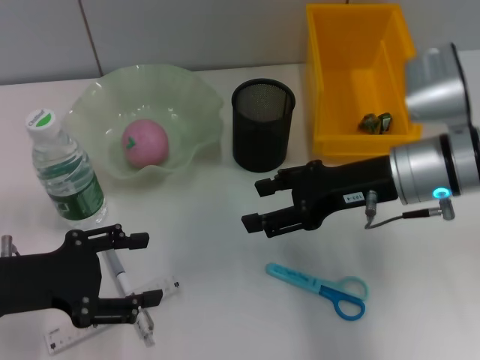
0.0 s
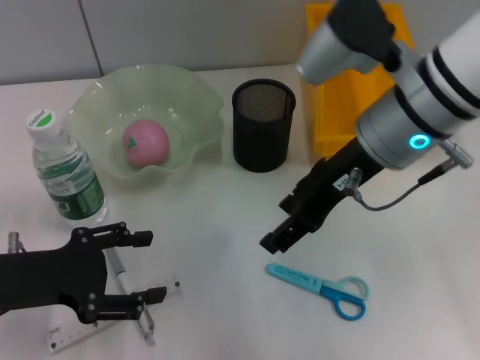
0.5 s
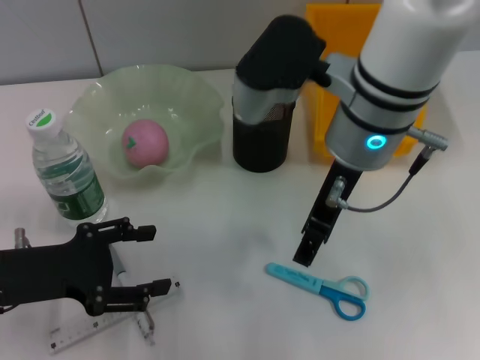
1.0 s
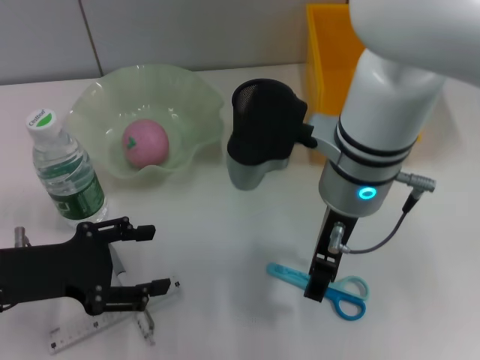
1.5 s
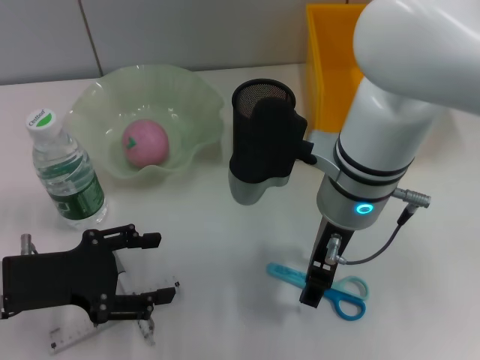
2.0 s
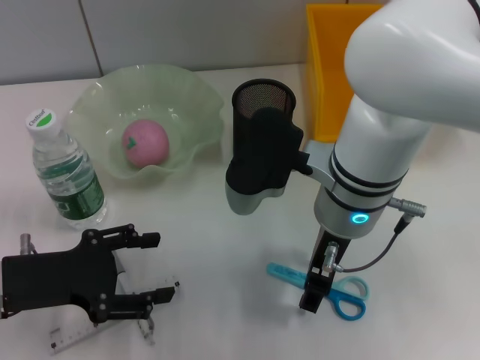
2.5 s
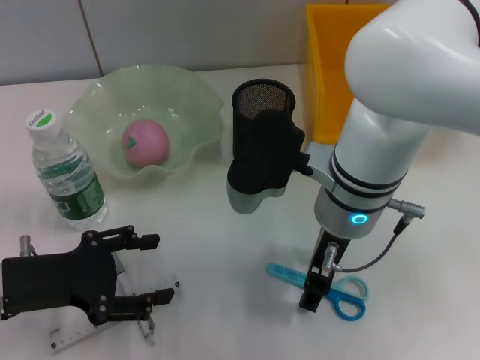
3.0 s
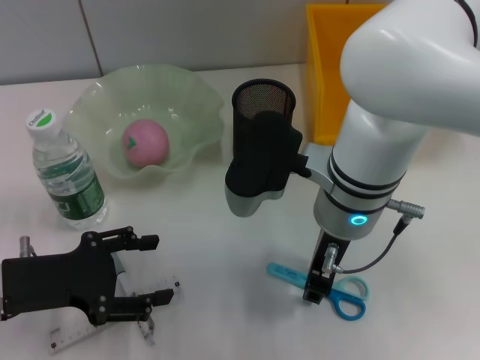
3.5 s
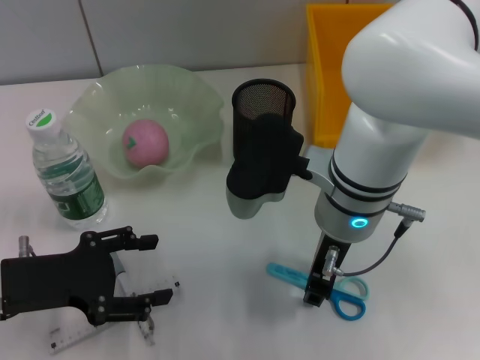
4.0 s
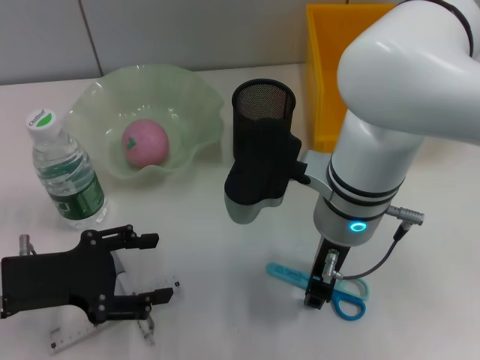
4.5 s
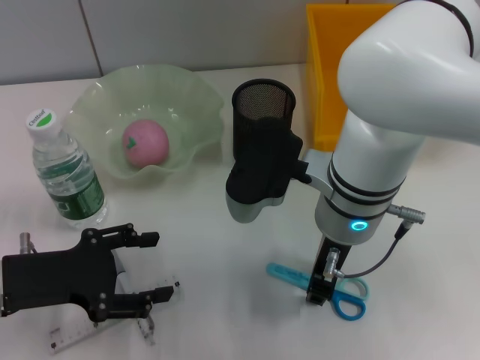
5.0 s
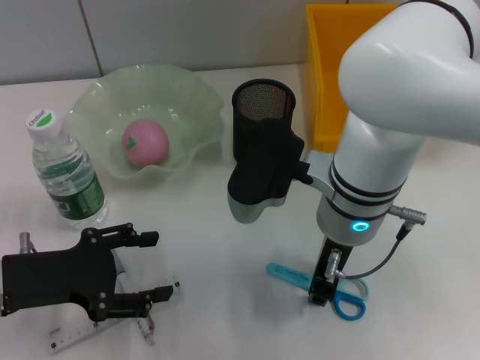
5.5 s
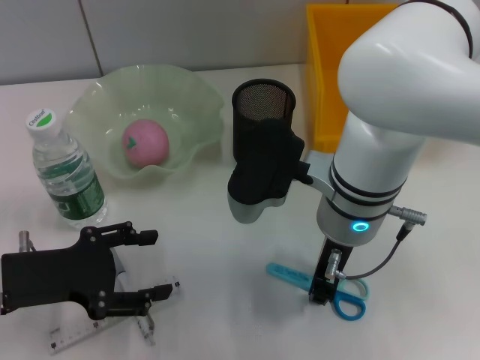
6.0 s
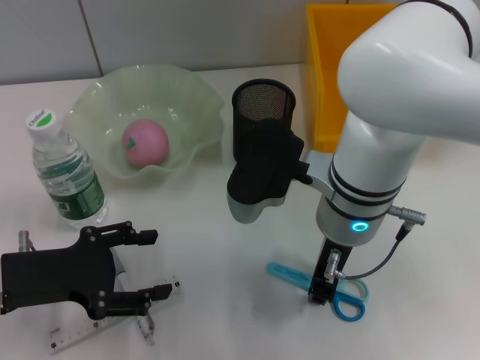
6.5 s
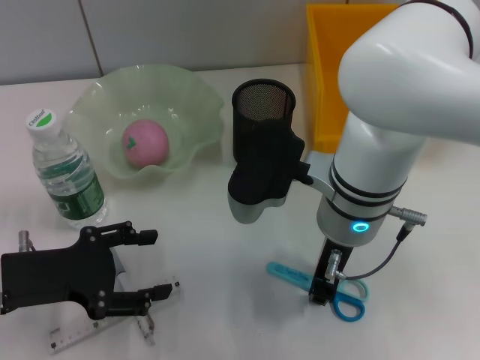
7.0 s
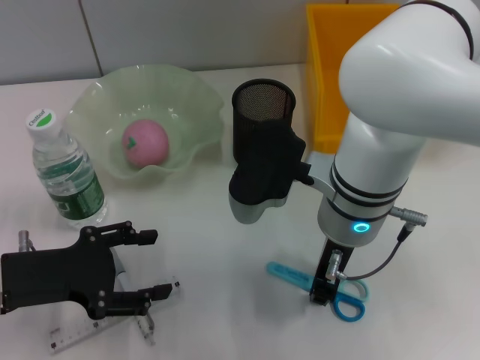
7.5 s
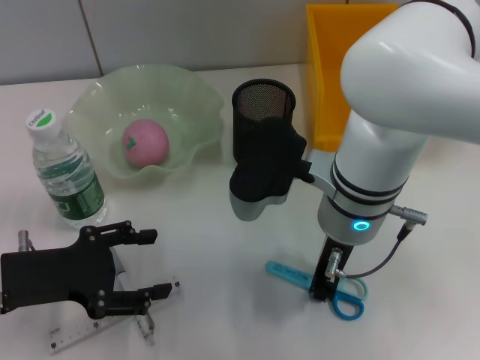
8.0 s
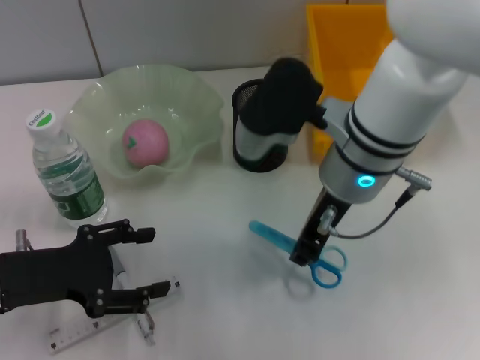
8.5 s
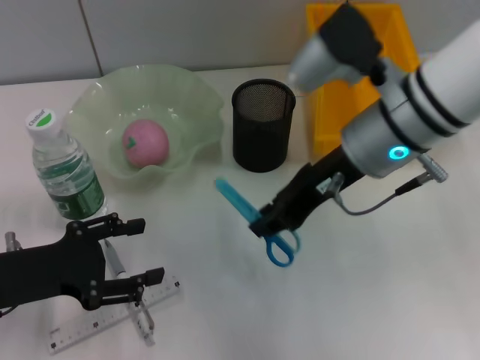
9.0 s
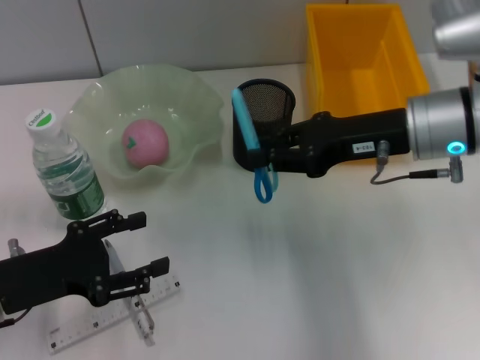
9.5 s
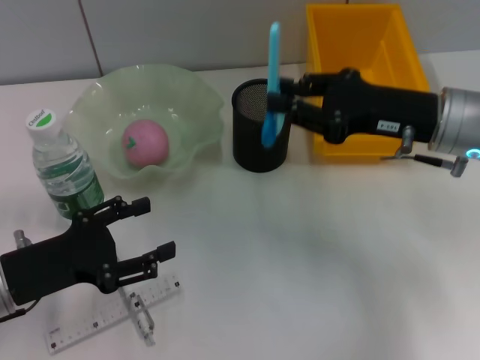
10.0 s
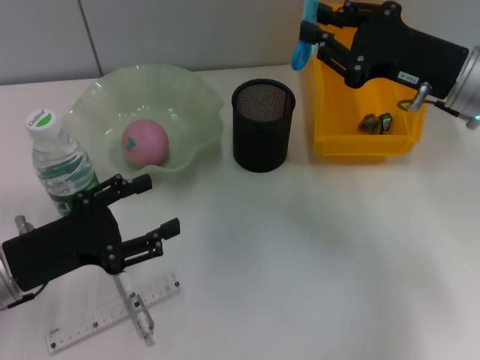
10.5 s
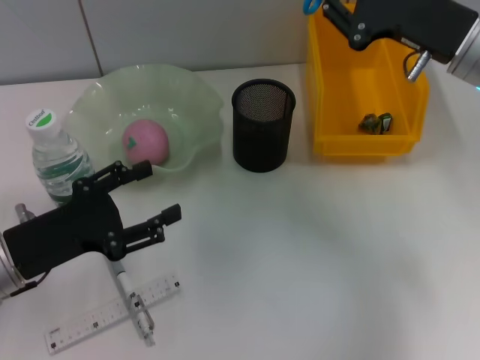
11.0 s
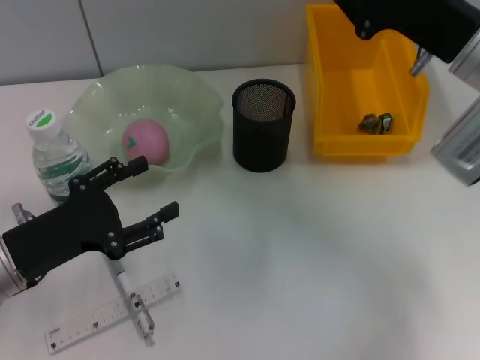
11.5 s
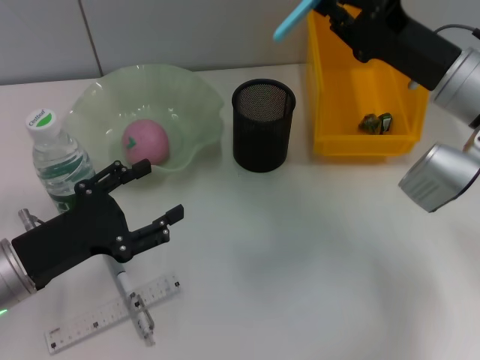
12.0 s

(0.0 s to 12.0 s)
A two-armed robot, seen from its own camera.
Step, 0.0 s - 8.0 s: Grab the blue scissors with the right hand.
0.0 s - 2.0 s: The right gripper shifts some 10 cm to the left.
2.0 s - 4.0 s: The right gripper closes.
4.0 s - 8.0 s: Both grippers stay put.
8.0 s - 10.0 s: The right gripper goes roughly 15 cm to the right.

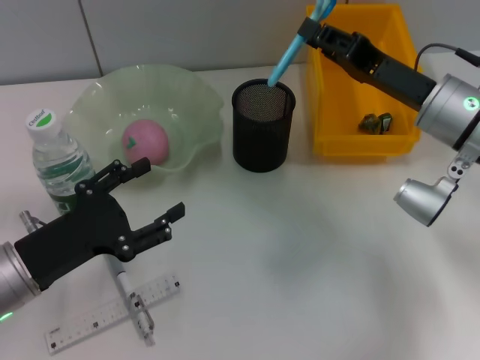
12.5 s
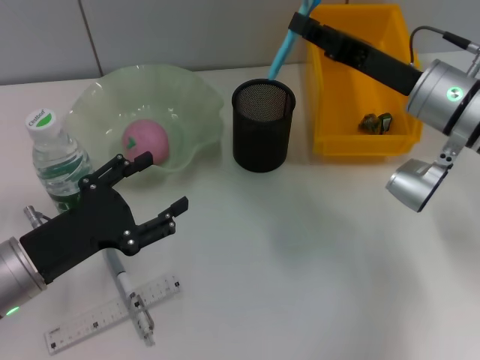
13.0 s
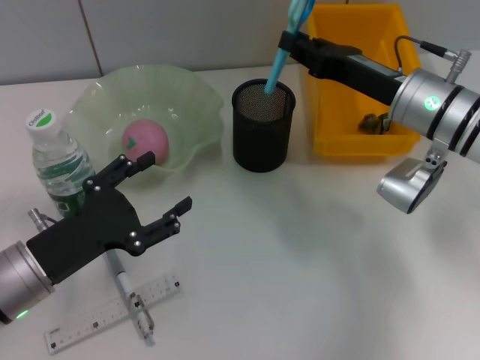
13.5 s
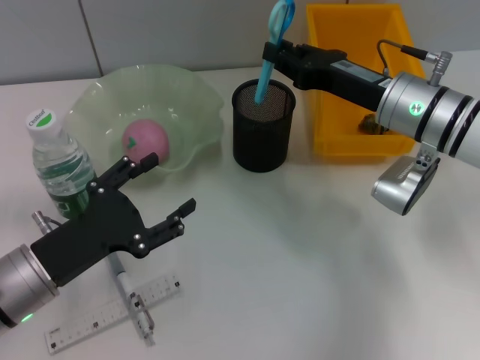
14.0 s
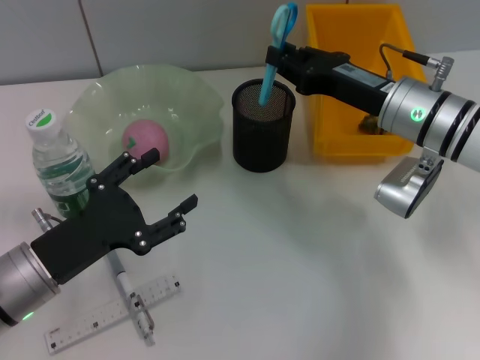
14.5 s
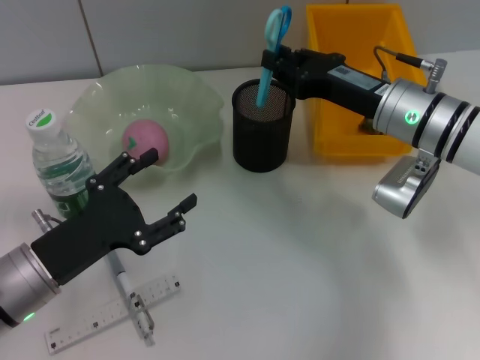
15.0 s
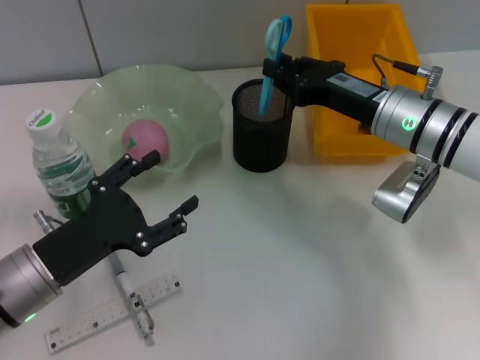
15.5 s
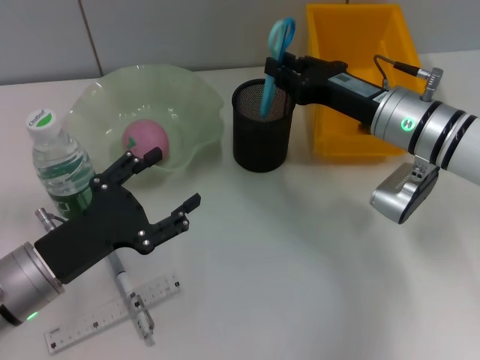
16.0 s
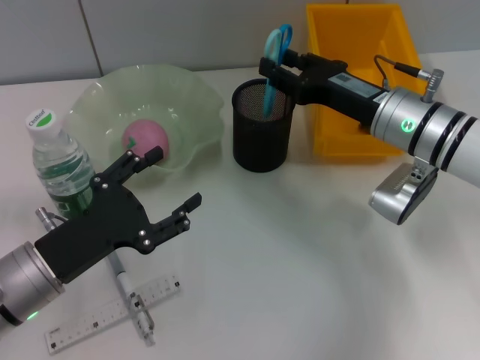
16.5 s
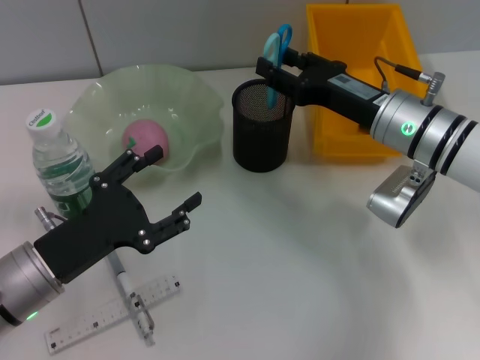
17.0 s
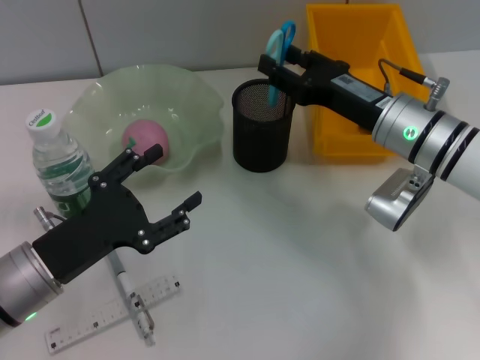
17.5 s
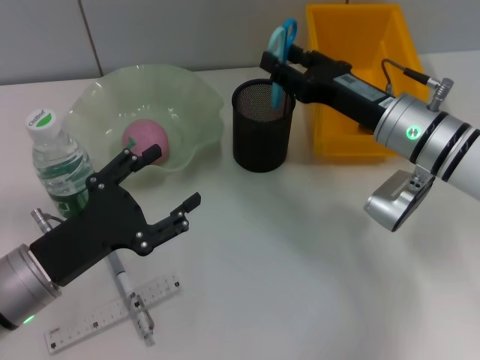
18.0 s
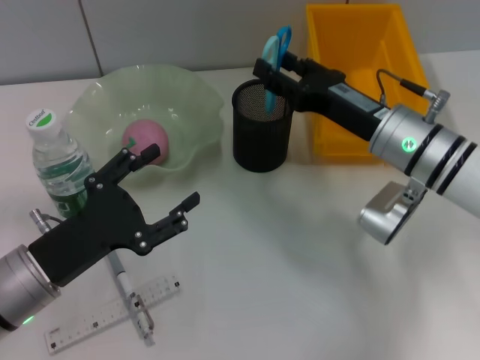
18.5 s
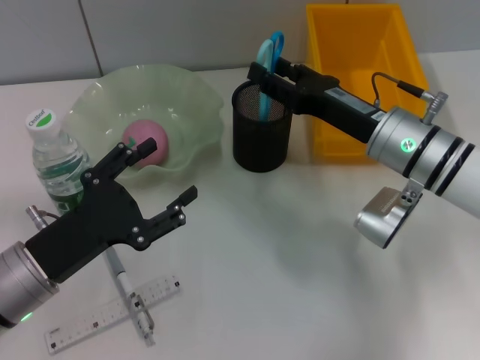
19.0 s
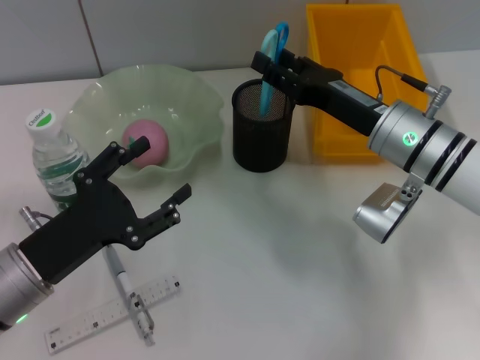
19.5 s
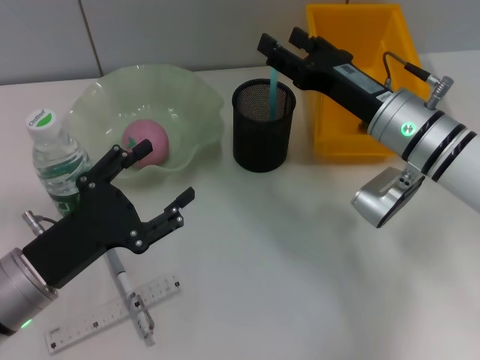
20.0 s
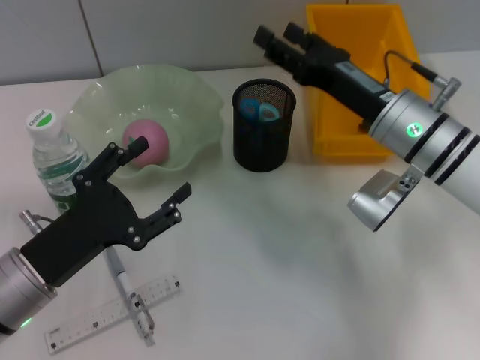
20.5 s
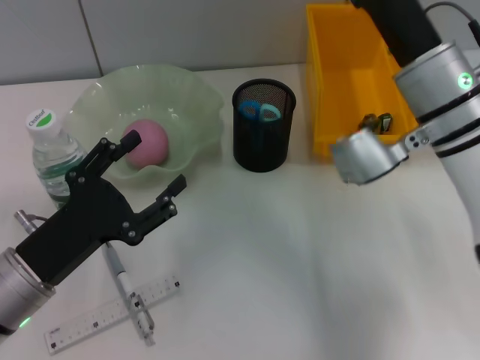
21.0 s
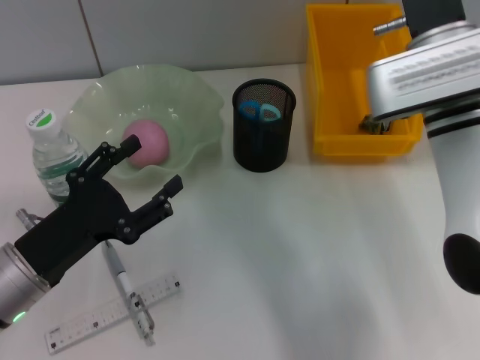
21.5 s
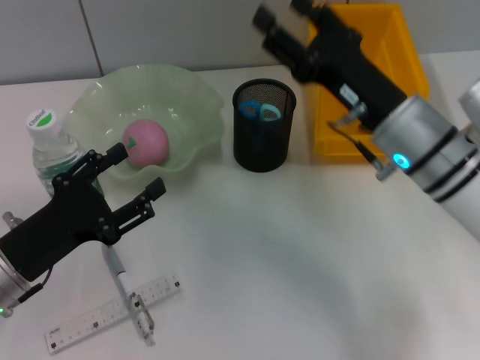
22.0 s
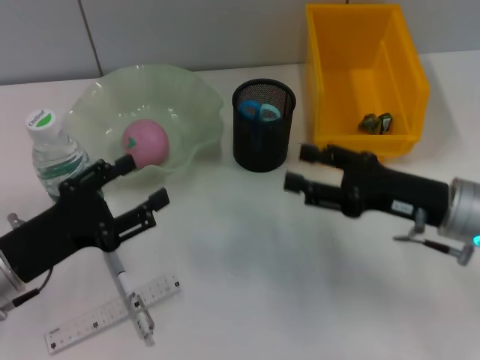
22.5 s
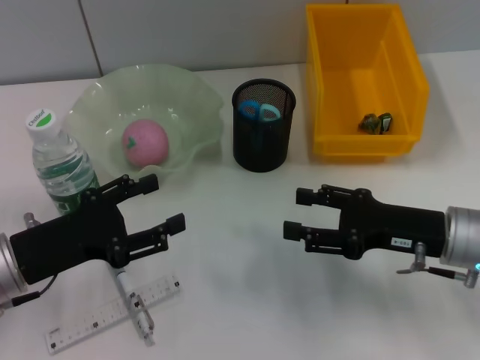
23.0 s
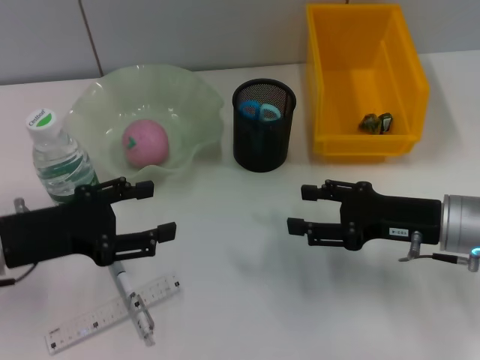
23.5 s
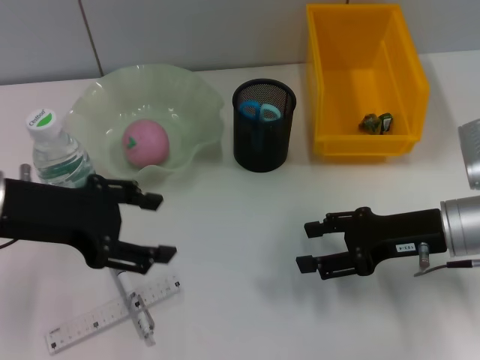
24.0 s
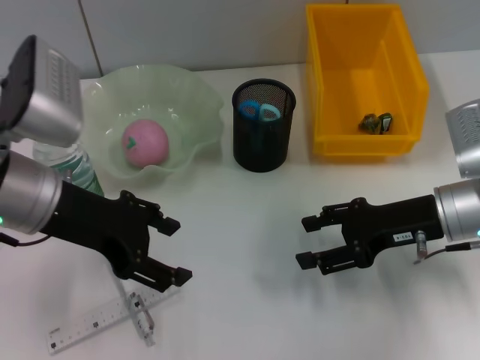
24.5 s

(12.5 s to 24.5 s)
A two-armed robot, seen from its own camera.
Step, 12.5 s - 19.5 s: Place the blue scissors into the pen holder with the right hand.
14.5 s - 16.5 s: The two grippers keep their place.
16.5 s - 20.5 s: The grippers stay close to where they were, moving slightly.
20.5 s - 22.5 s: The right gripper travels backward and to the right by roughly 10 cm.
22.5 s - 24.5 s: The left gripper is displaced upward, to the right and forward by roughly 15 cm.

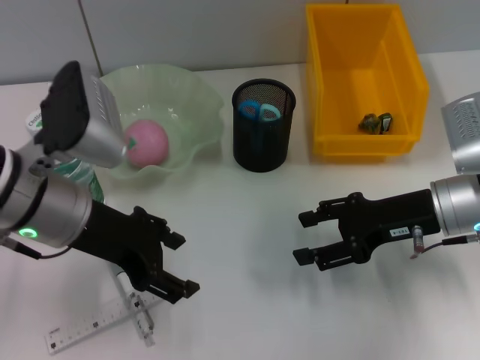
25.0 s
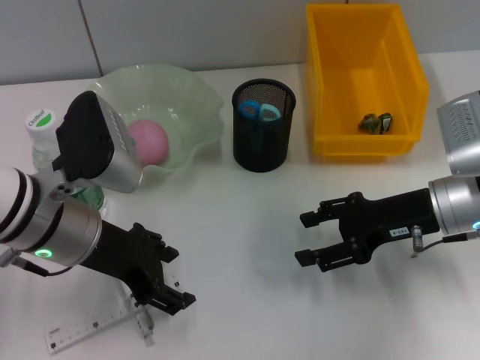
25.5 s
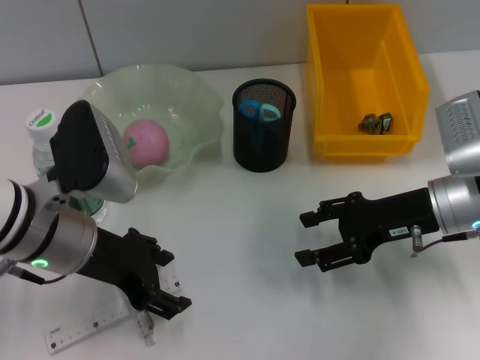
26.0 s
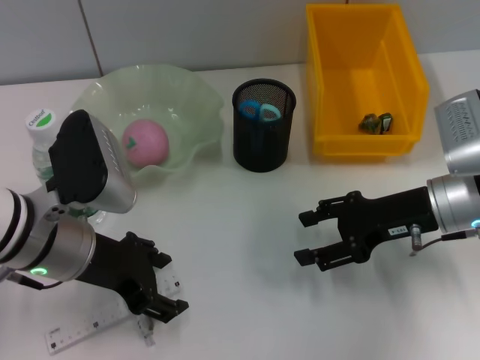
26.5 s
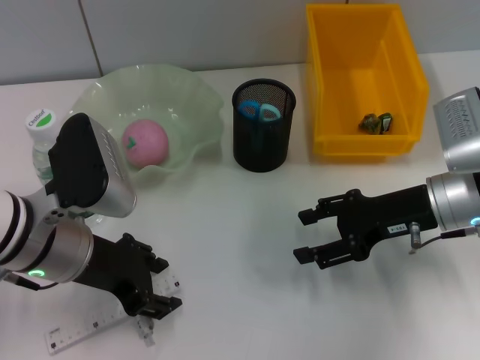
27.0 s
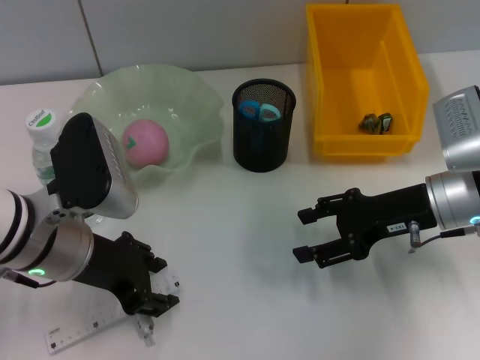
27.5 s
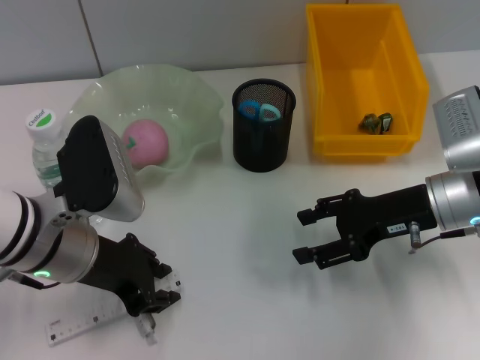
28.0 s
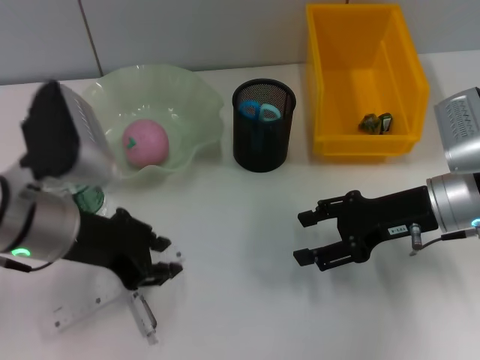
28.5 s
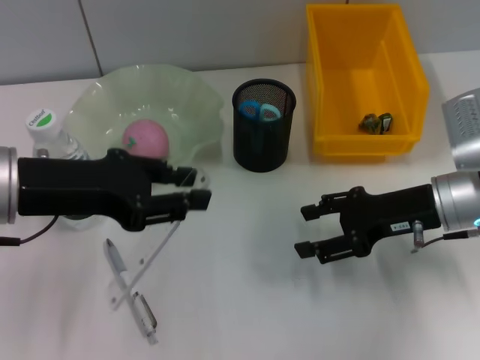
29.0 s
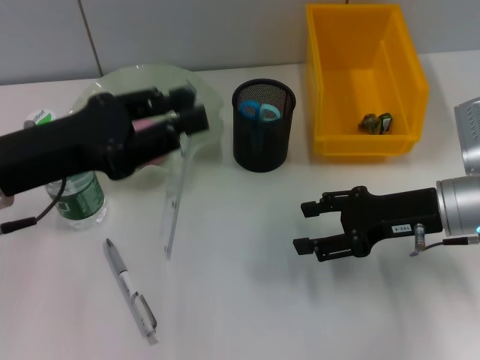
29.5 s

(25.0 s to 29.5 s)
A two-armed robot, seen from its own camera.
Step, 25.0 s - 27.5 s: Grab the ruler with the left hand.
25.0 s - 27.0 s: There are only small adjustments of the grippers.
27.0 s - 29.5 s: The left gripper heads upward, covering roughly 5 cm, and closes.
